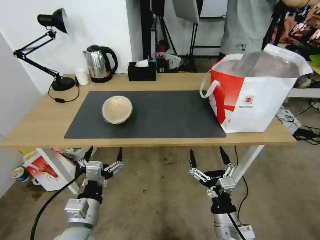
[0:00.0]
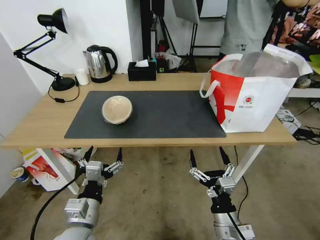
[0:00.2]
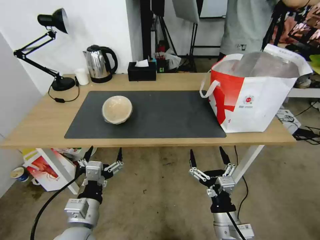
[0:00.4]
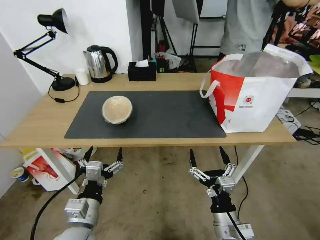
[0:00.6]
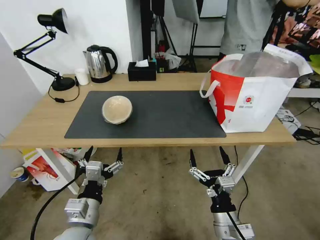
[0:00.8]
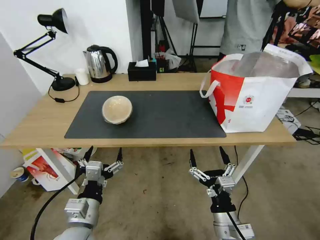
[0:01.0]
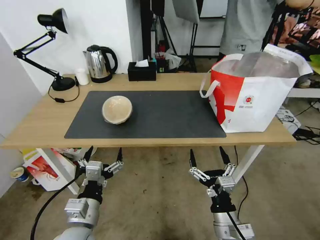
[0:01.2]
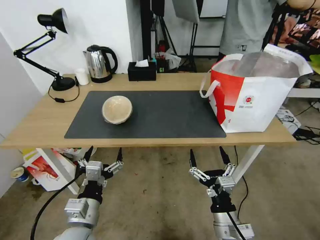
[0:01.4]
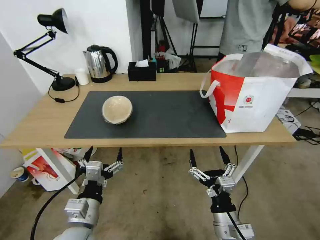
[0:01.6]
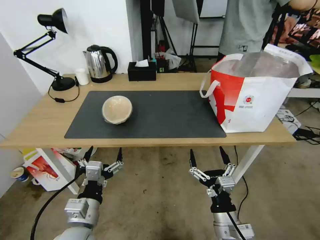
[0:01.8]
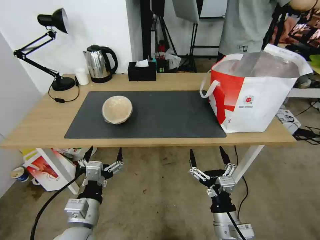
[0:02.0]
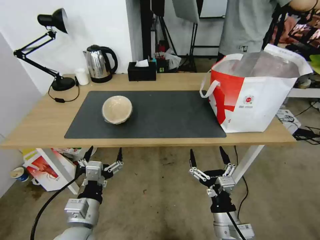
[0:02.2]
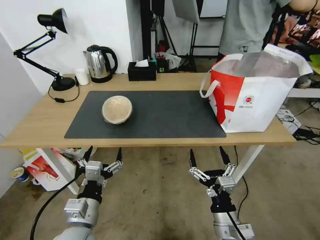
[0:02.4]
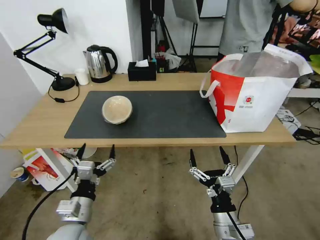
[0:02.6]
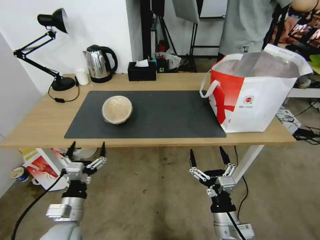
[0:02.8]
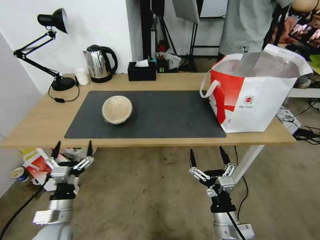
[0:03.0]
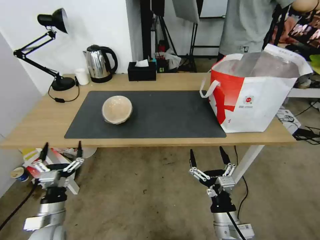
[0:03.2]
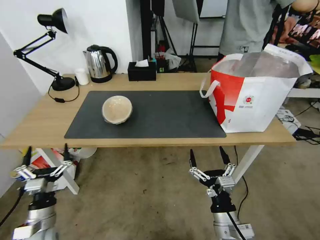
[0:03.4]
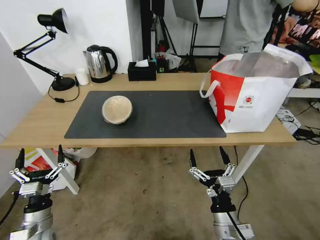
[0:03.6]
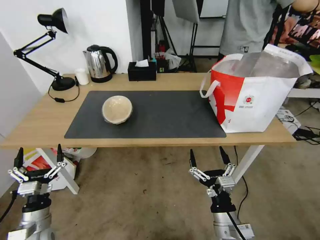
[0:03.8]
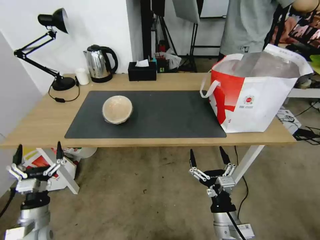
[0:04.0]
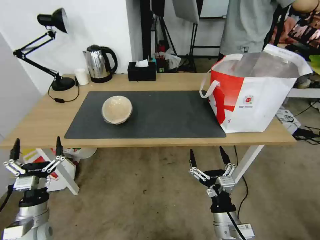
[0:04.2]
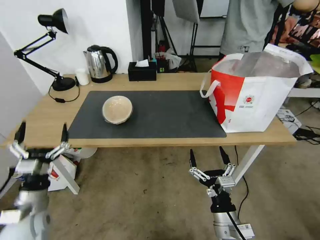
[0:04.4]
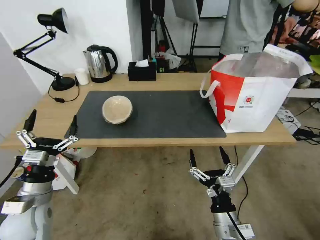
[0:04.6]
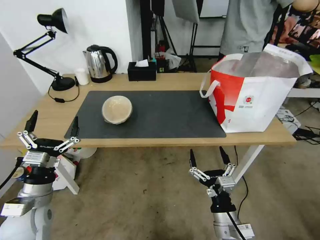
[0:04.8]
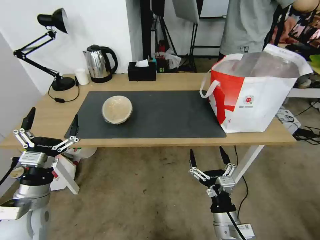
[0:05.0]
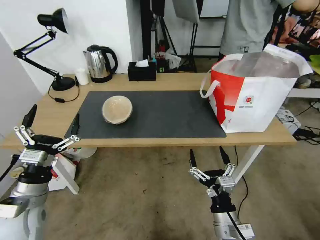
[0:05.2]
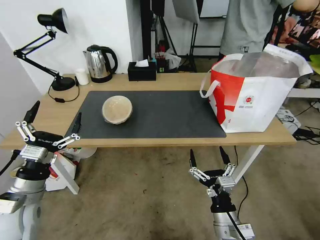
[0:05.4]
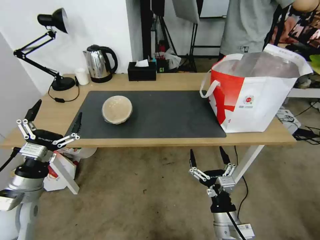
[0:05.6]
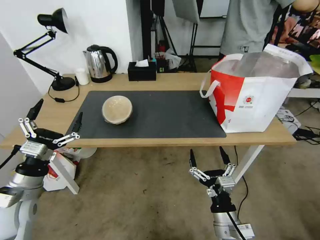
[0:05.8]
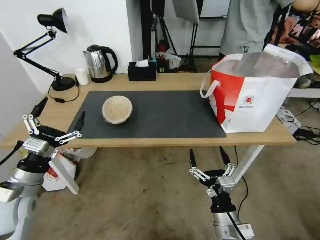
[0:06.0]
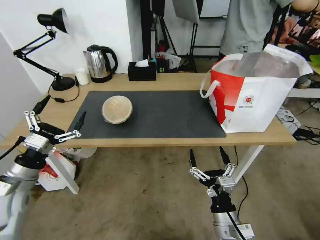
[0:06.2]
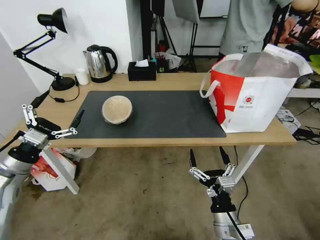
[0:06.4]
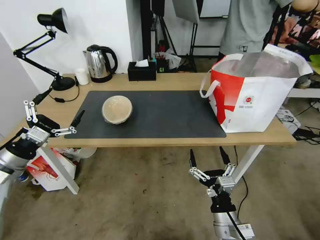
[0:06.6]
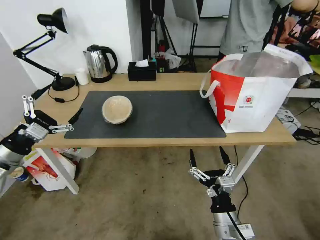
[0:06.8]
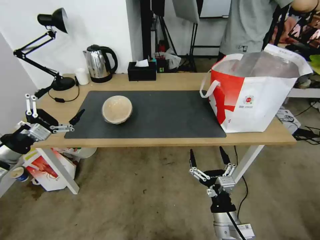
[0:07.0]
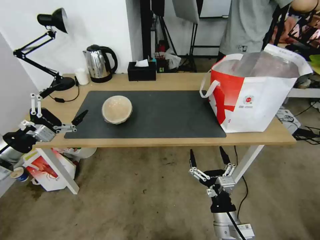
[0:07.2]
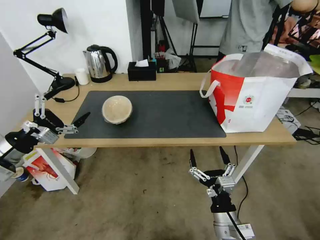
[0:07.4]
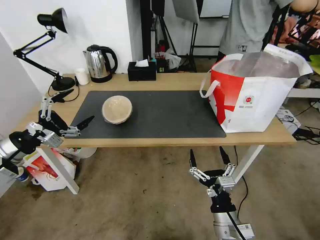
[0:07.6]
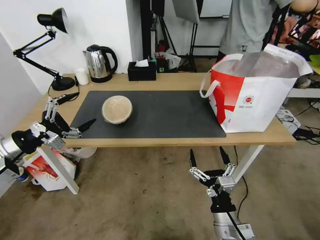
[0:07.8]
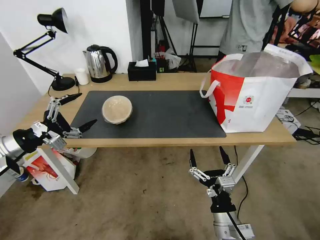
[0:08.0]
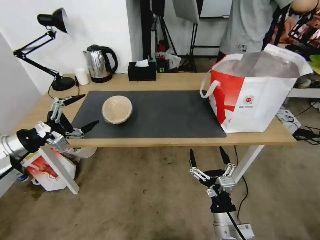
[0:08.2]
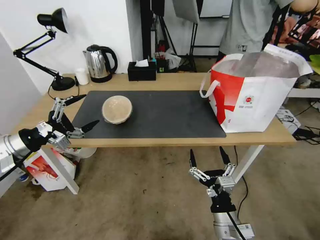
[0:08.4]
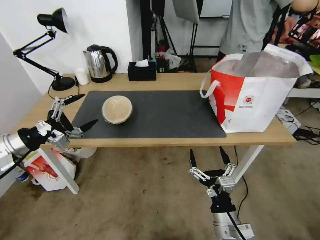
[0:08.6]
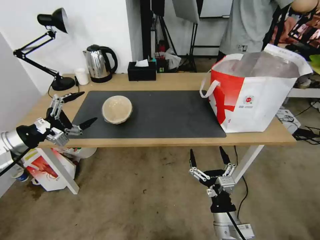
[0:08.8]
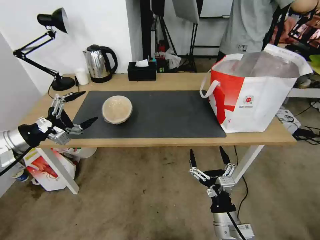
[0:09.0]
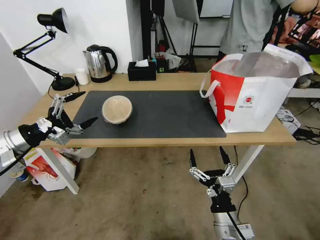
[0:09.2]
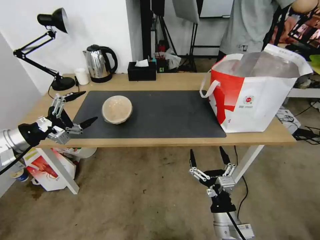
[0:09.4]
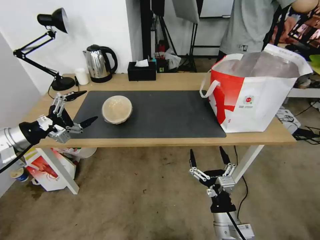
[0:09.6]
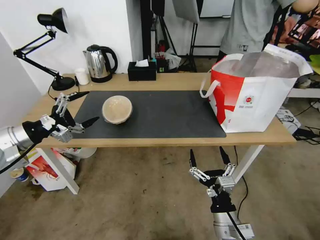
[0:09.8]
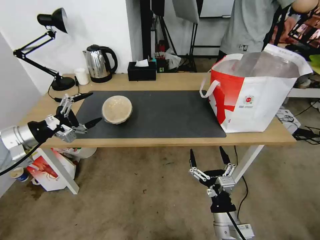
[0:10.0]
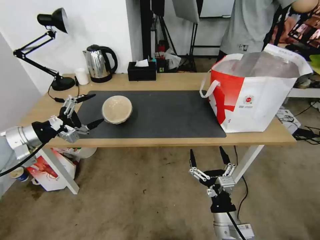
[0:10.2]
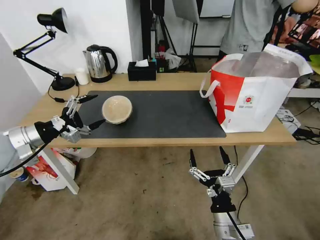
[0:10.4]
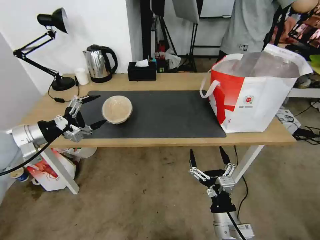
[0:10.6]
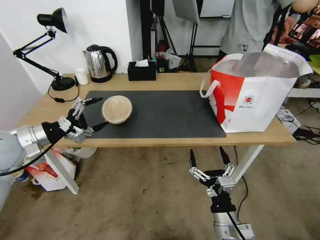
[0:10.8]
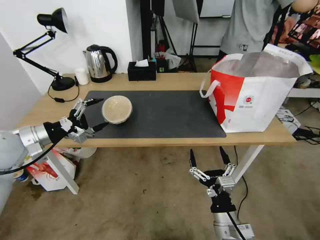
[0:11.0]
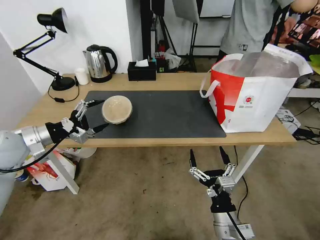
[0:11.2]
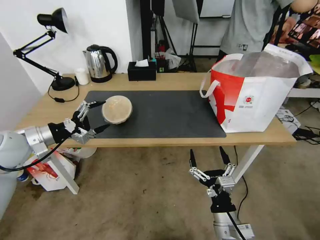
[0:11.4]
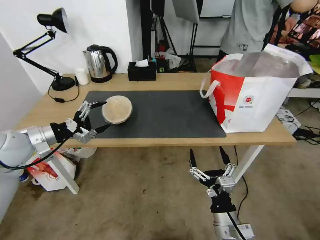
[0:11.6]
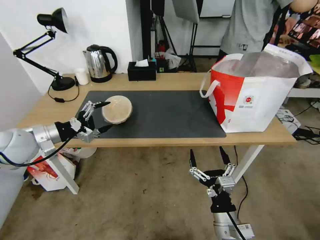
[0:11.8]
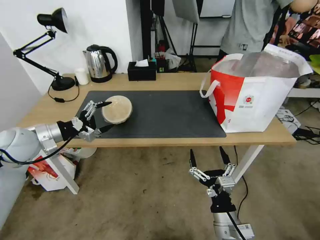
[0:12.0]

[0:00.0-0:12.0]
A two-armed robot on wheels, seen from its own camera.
Task of the whole recording: Pick up the trash from the table and place it into the takeout bag.
0:00.0 to 0:01.6: The two grippers keep their place.
0:01.6 to 0:03.0: The left gripper shifts approximately 10 cm to the left and downward.
0:03.0 to 0:04.4: The left gripper goes roughly 5 cm to the left.
0:04.4 to 0:06.0: The left gripper heads upward, covering approximately 10 cm.
0:06.0 to 0:07.6: The left gripper travels upward, to the left and forward by some 10 cm.
0:07.6 to 0:10.4: The grippers make only small movements.
0:10.4 to 0:12.0: The left gripper changes place by approximately 5 cm.

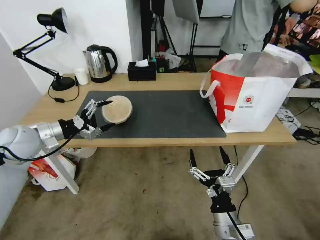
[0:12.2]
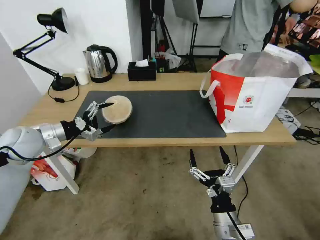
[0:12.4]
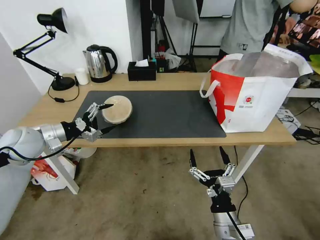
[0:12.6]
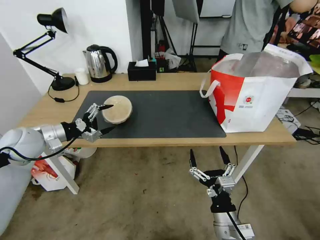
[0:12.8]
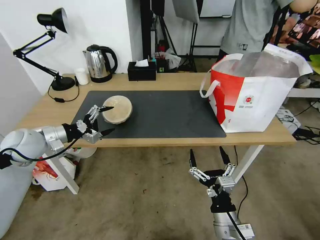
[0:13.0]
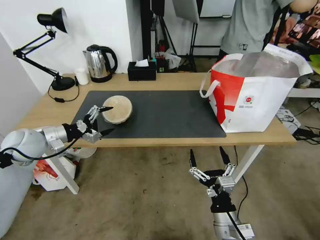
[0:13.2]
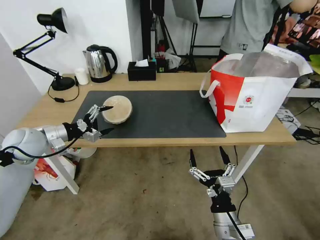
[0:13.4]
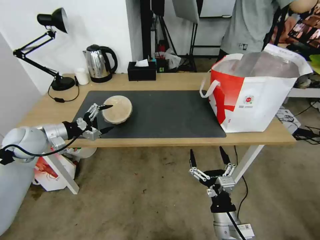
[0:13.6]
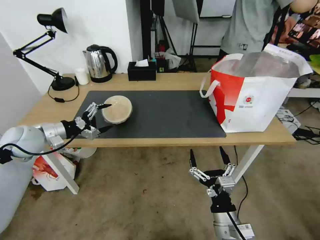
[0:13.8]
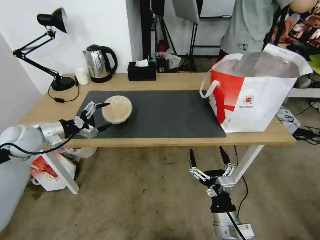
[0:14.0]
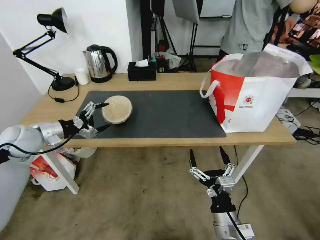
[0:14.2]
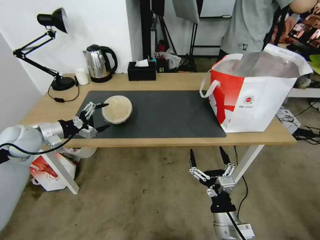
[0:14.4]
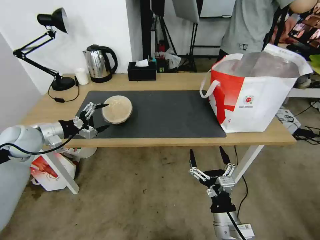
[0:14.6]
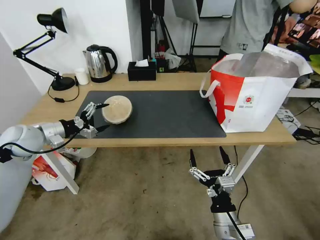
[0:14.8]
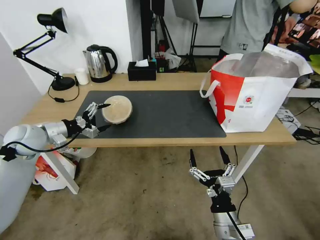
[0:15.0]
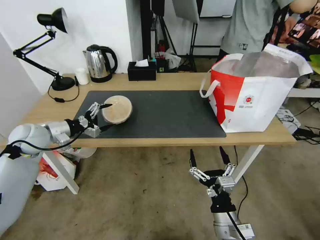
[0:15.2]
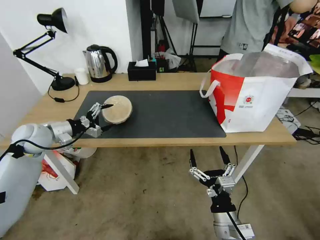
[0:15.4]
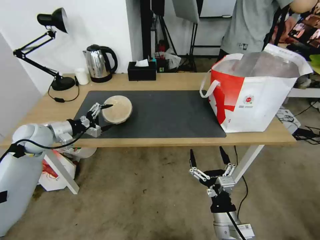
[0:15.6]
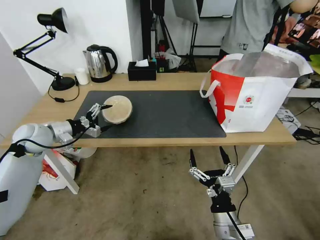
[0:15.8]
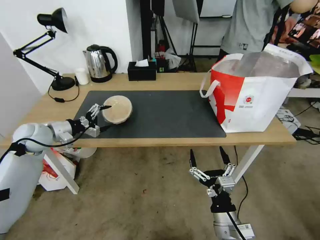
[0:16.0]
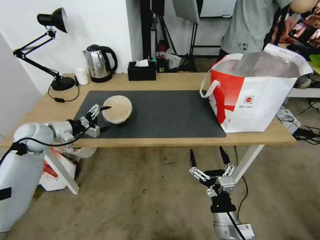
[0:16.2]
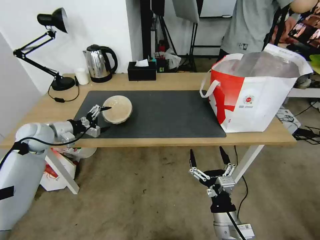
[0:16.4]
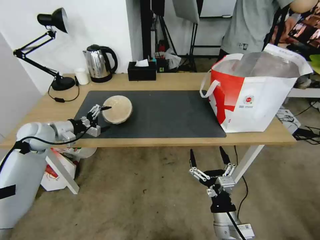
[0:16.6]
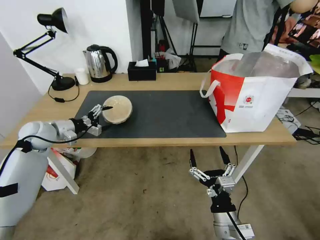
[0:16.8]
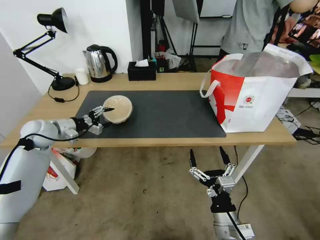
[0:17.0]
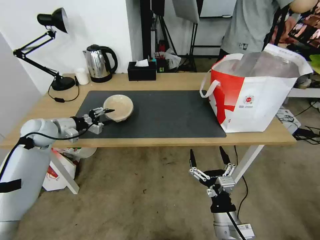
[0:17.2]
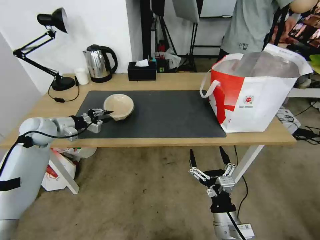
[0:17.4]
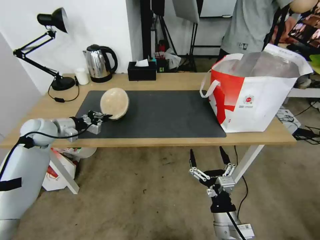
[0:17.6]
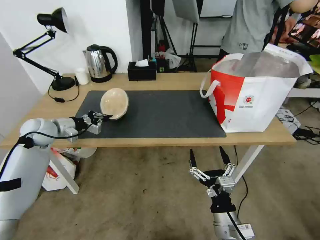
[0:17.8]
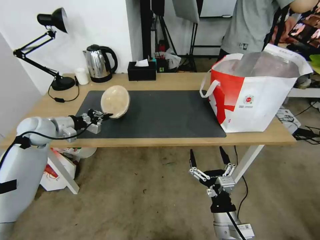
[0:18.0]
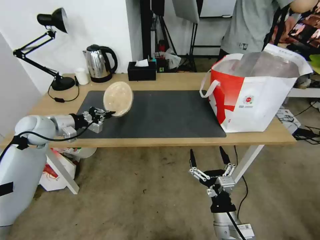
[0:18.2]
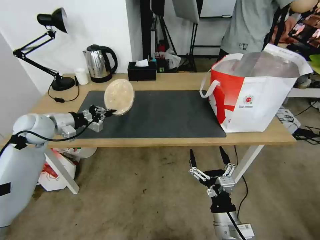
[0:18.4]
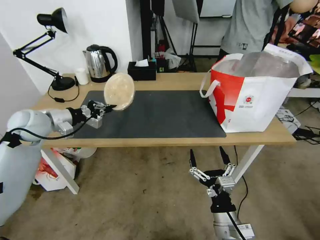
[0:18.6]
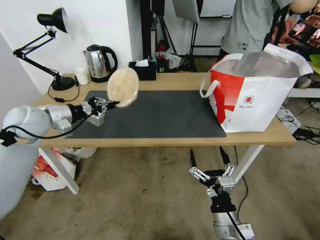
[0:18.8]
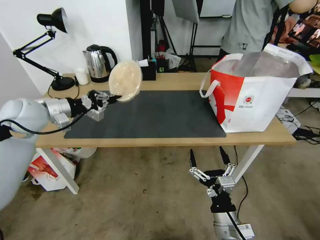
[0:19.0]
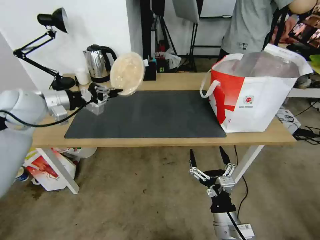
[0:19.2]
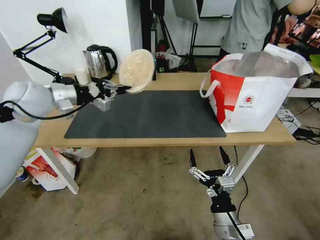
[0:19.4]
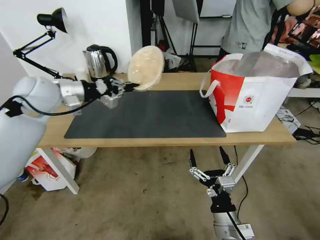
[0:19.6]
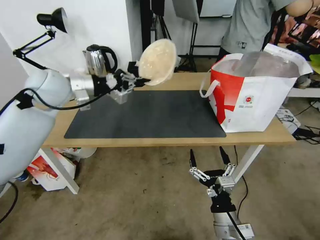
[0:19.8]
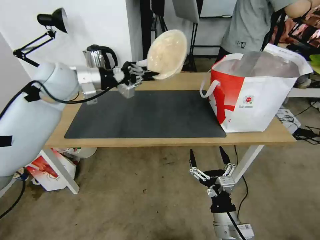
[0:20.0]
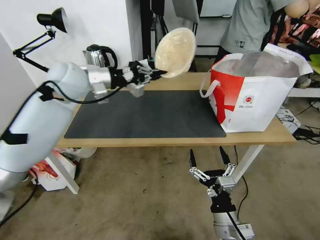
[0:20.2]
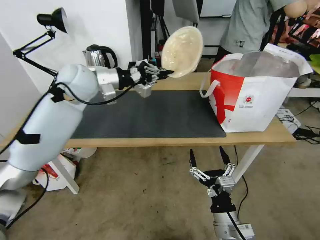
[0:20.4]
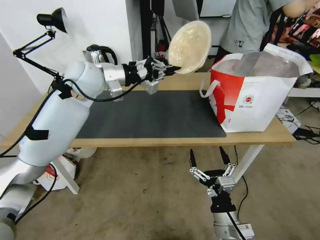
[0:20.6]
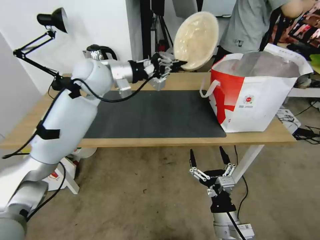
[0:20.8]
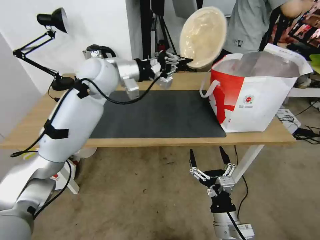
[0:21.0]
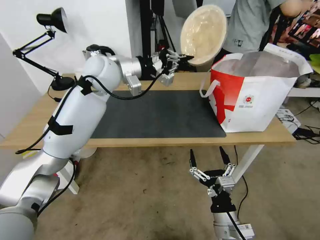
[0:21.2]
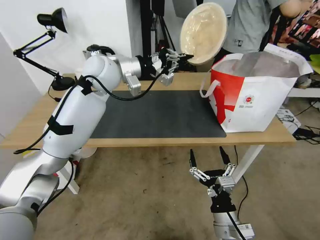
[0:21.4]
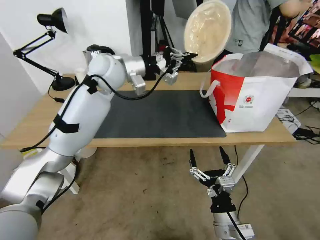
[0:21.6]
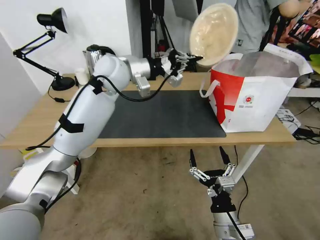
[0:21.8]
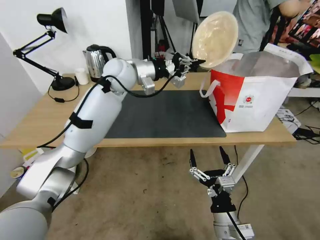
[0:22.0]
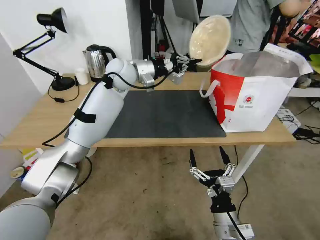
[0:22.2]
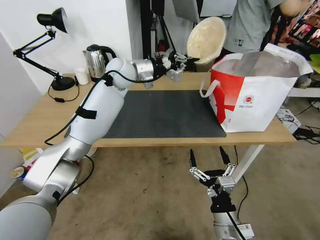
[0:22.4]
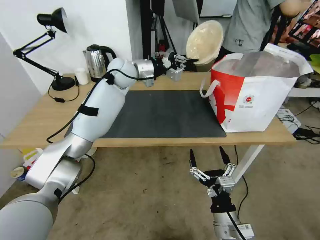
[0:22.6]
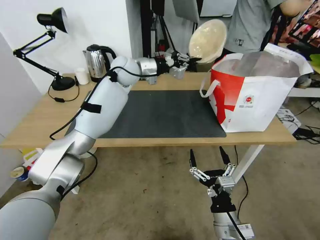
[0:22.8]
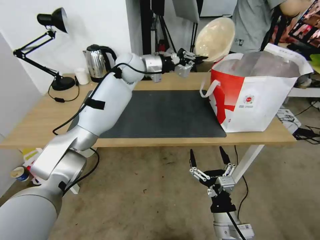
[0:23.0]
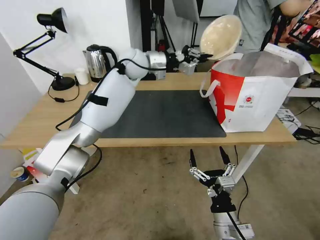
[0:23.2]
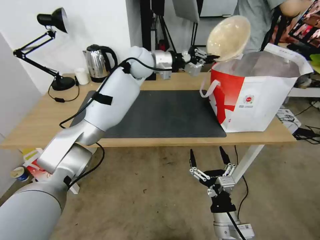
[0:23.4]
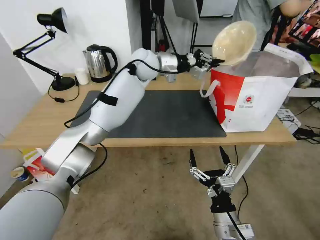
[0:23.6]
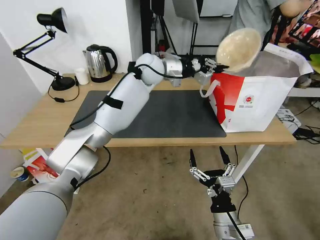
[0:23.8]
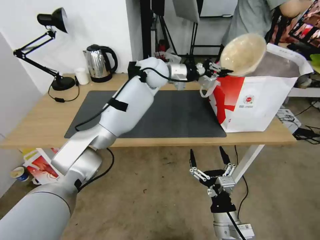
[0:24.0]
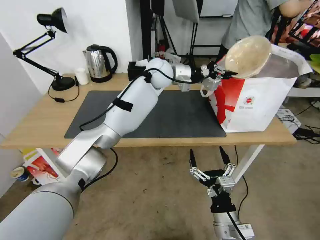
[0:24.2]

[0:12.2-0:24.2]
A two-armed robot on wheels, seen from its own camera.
Task of the whole recording: Pick up the trash from the table and place it into the takeout bag.
0:12.2 to 0:15.2: The grippers make only small movements.
0:15.2 to 0:16.6: The grippers stay close to where they were, moving slightly.
0:16.6 to 0:18.2: The left gripper closes up.
0:18.2 to 0:19.8: The left gripper heads upward and to the right, covering approximately 15 cm.
0:19.8 to 0:21.2: The left gripper shifts approximately 15 cm to the right.
0:21.2 to 0:22.6: The left gripper goes roughly 10 cm forward.
0:22.6 to 0:24.2: The left gripper moves to the right, roughly 15 cm.
